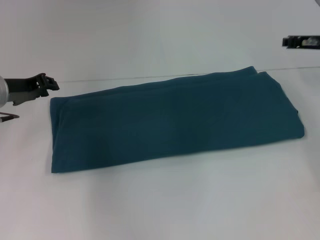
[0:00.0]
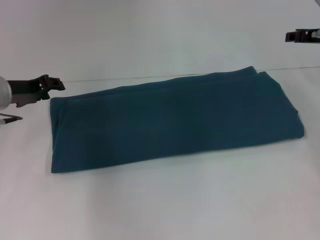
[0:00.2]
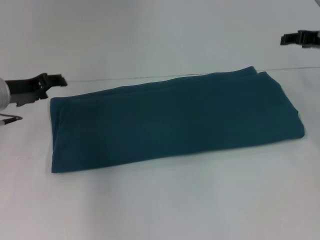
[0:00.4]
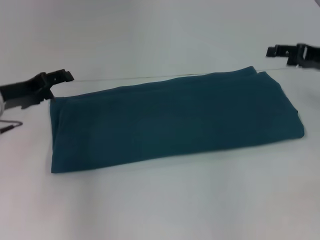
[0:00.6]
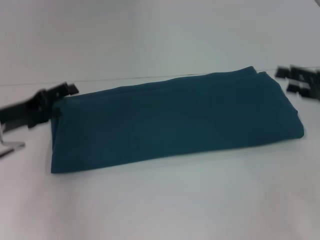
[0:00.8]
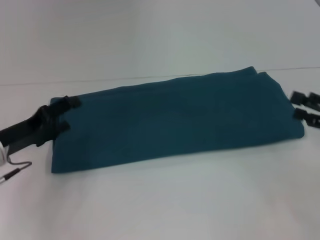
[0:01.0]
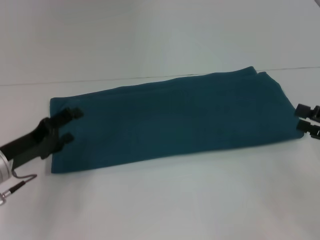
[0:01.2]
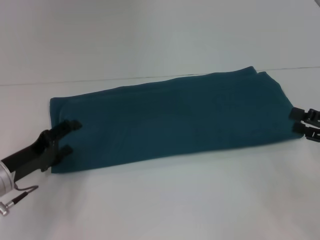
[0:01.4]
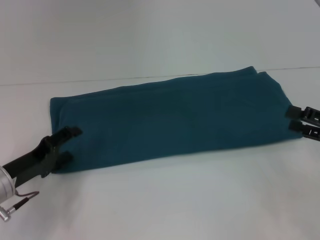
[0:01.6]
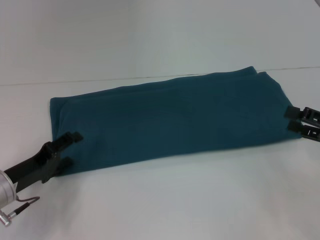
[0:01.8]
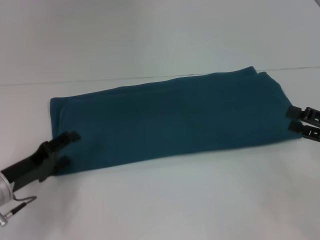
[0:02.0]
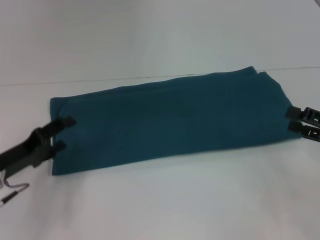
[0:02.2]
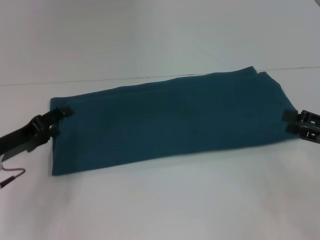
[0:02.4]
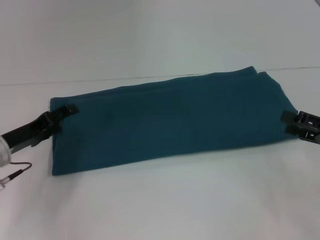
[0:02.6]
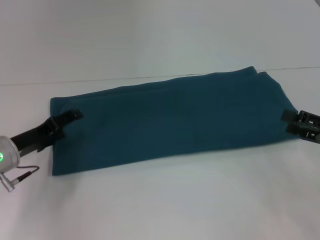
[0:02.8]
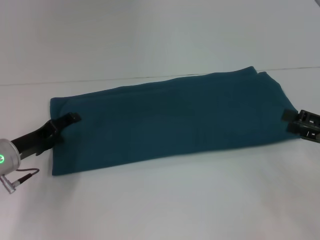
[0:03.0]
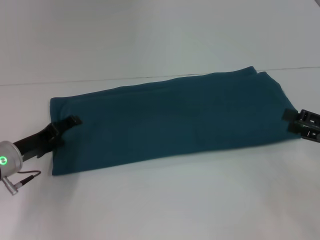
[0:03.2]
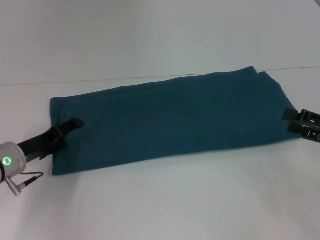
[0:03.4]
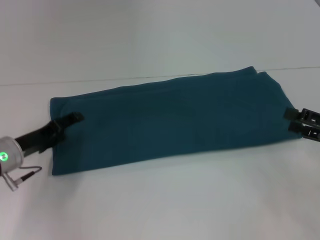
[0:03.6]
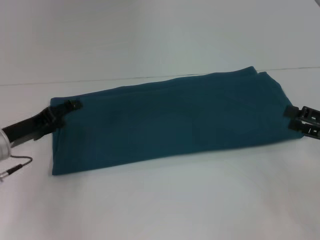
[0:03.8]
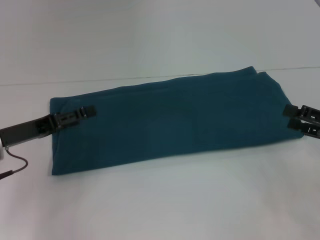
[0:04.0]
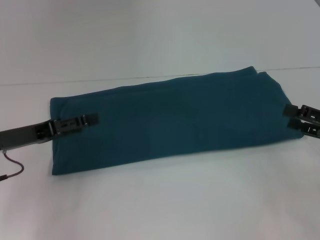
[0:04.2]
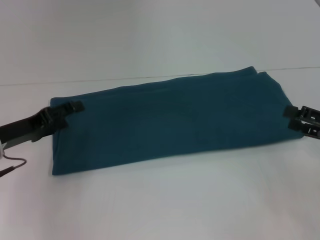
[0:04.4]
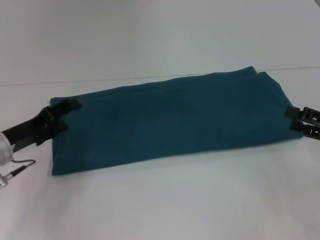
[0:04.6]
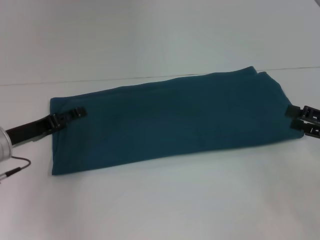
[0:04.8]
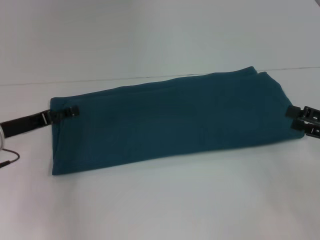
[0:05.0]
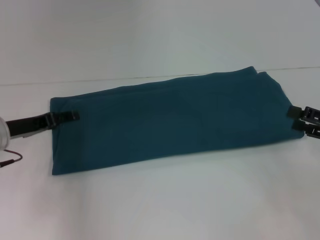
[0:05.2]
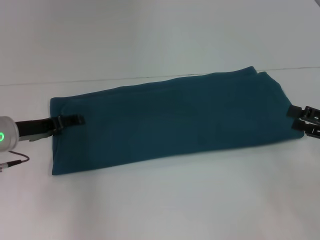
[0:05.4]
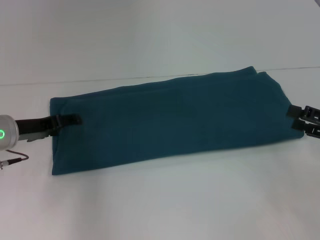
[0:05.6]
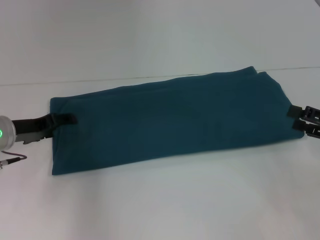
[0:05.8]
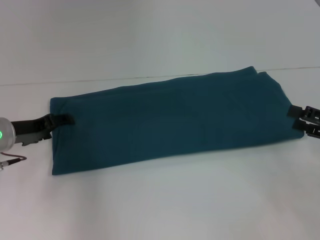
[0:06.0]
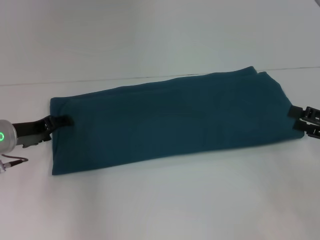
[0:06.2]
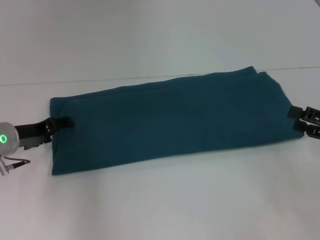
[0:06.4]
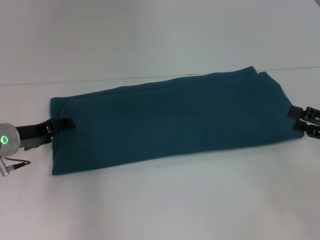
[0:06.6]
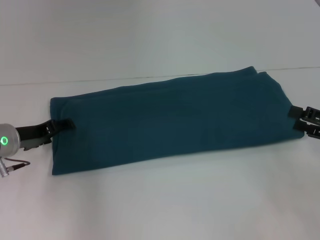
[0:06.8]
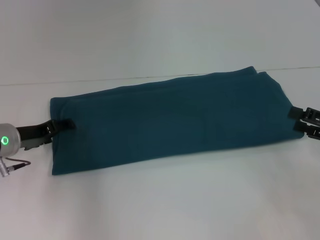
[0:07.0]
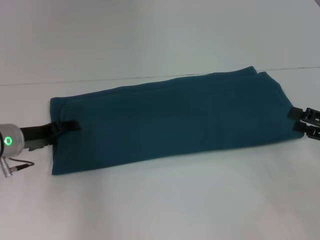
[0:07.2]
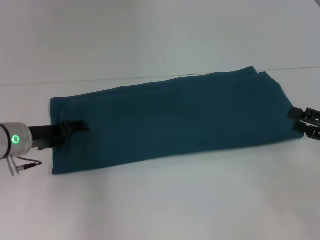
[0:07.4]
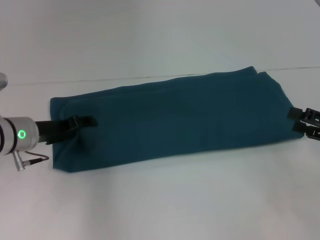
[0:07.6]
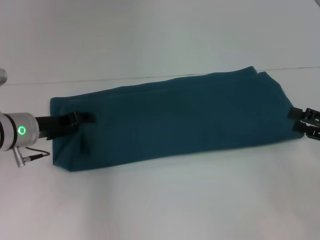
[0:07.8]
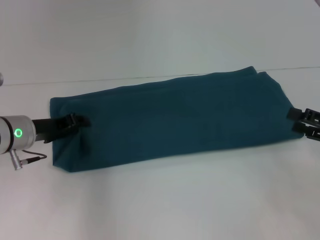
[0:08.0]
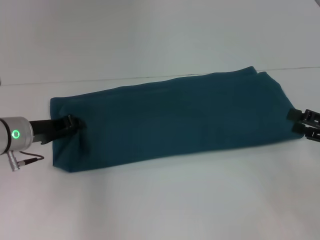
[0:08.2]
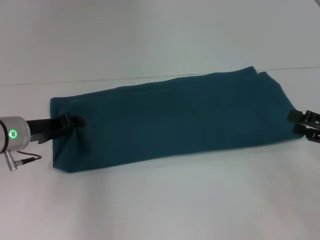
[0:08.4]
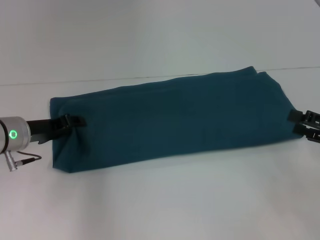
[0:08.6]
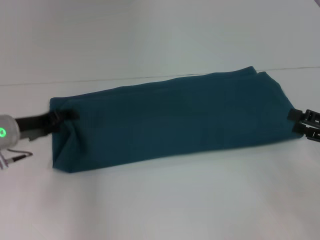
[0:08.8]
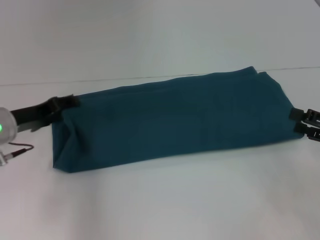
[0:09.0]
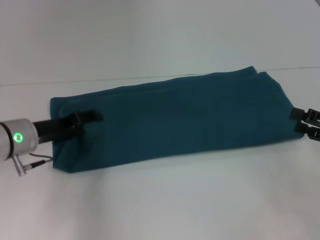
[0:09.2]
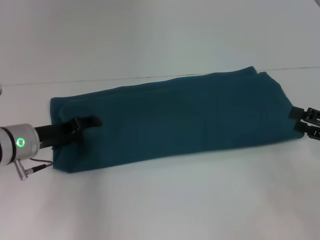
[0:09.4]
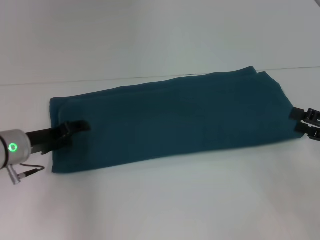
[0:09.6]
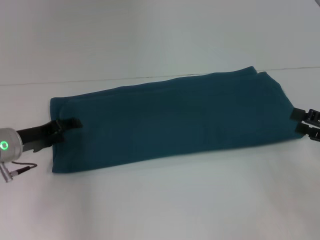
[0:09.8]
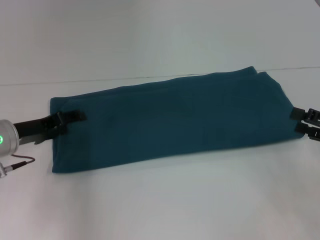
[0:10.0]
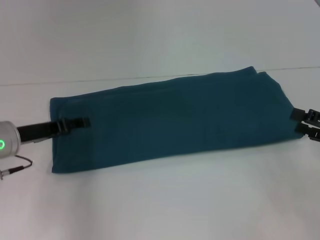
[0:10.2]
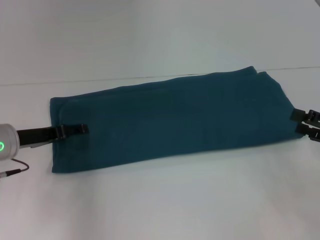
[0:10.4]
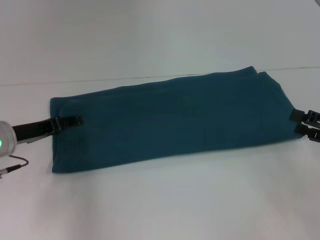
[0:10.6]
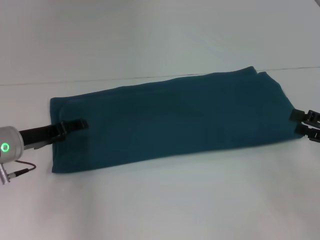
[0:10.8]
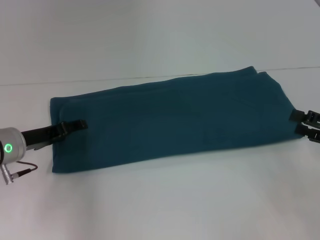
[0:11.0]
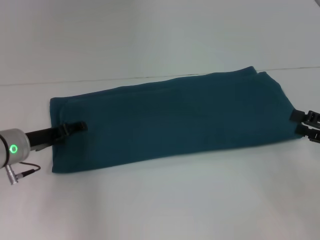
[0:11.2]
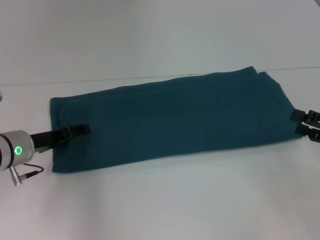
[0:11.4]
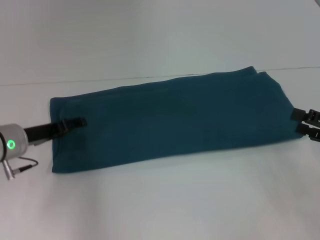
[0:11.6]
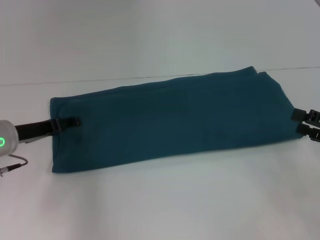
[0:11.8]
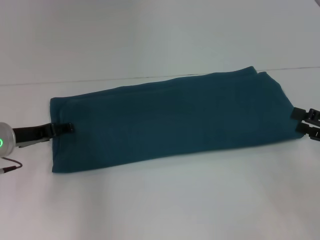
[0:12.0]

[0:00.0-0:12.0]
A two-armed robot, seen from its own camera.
0:00.0 to 0:01.6: The left gripper goes approximately 15 cm backward and downward, and opens up; the right gripper moves backward, about 20 cm, and opens up.
0:01.6 to 0:03.0: The grippers stay close to where they were, moving slightly.
0:06.0 to 0:12.0: The grippers move only a little.

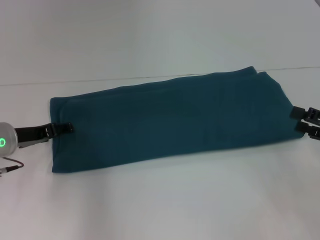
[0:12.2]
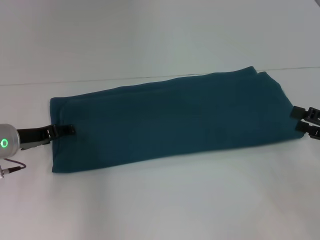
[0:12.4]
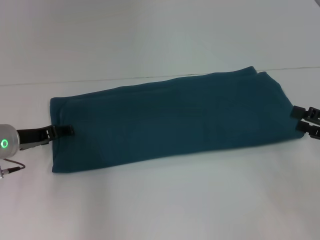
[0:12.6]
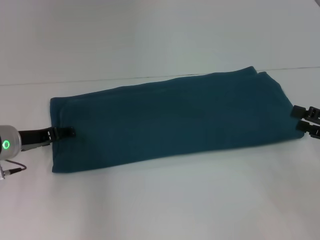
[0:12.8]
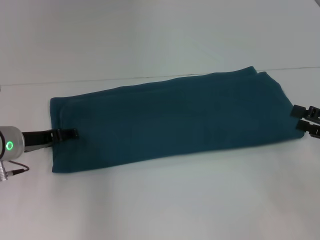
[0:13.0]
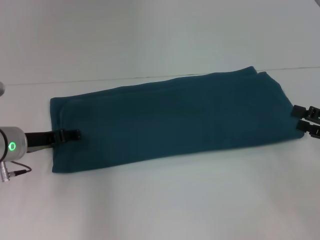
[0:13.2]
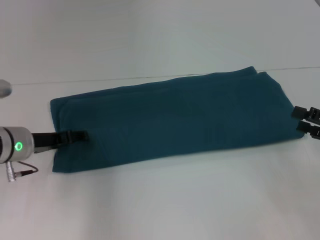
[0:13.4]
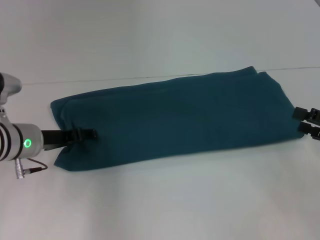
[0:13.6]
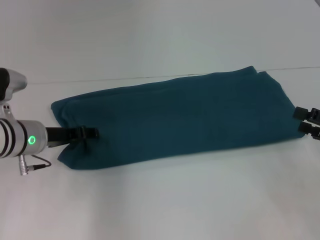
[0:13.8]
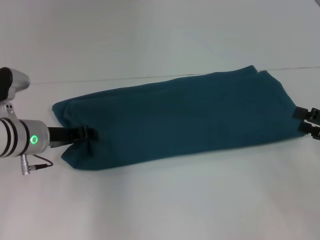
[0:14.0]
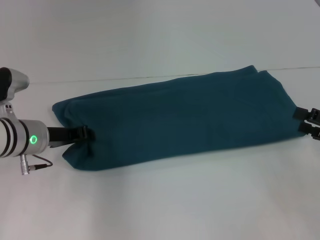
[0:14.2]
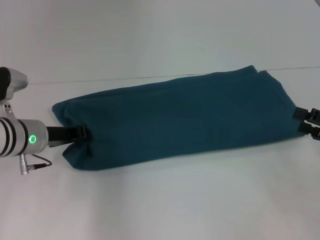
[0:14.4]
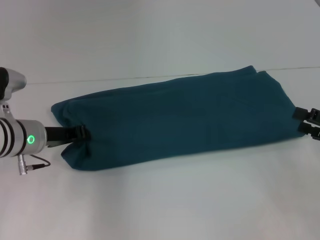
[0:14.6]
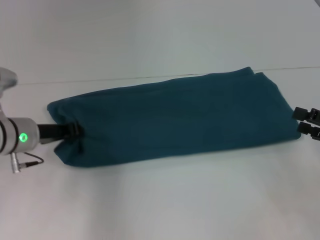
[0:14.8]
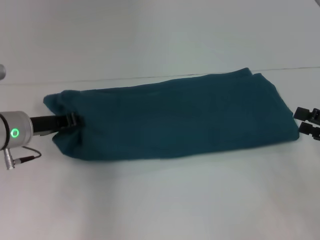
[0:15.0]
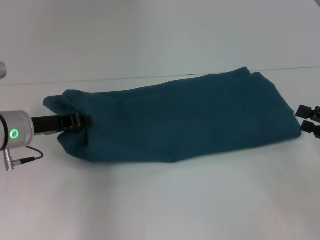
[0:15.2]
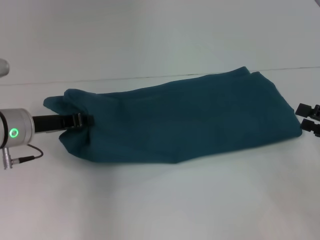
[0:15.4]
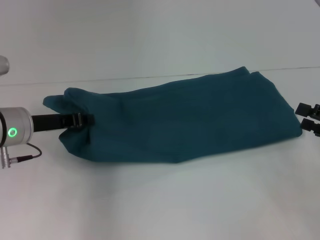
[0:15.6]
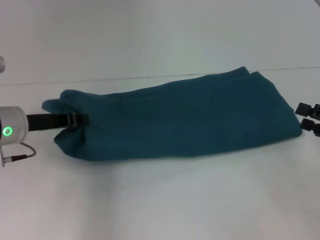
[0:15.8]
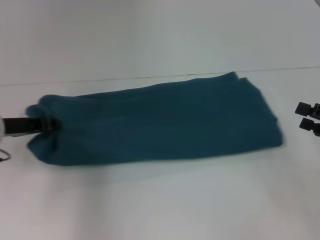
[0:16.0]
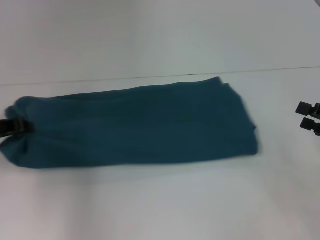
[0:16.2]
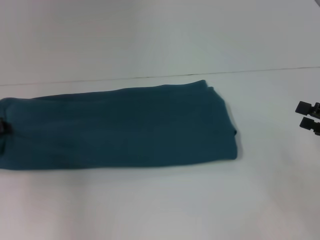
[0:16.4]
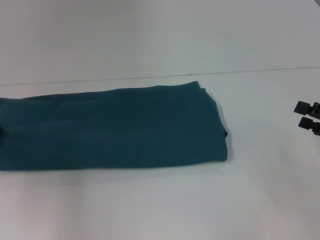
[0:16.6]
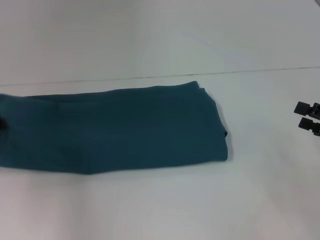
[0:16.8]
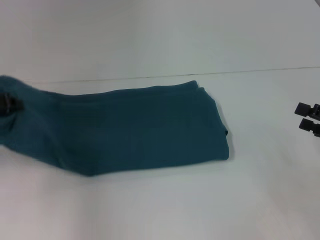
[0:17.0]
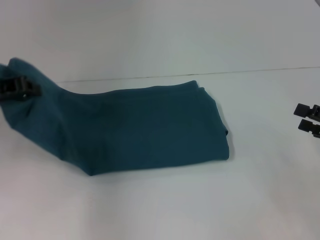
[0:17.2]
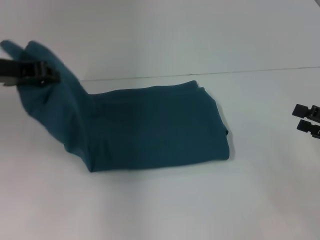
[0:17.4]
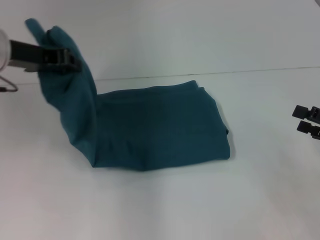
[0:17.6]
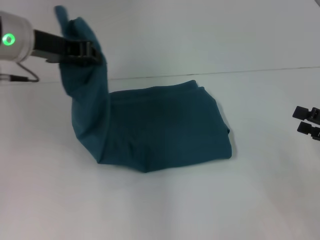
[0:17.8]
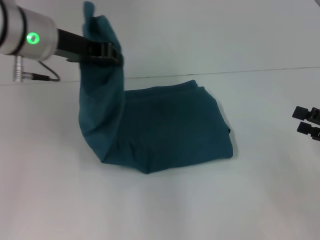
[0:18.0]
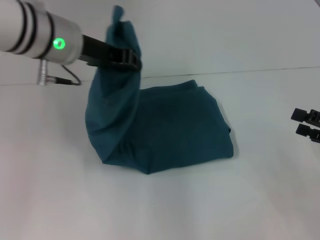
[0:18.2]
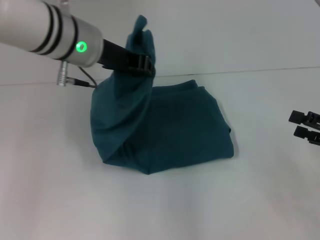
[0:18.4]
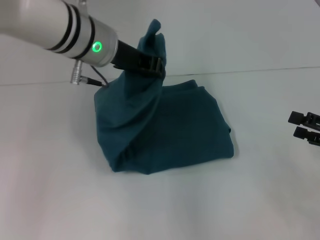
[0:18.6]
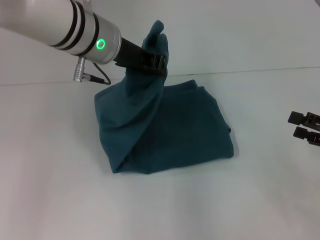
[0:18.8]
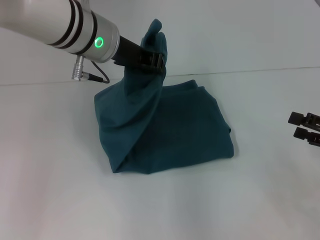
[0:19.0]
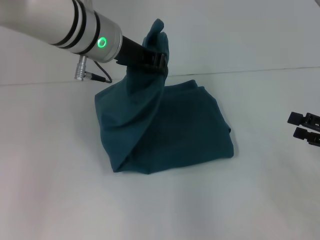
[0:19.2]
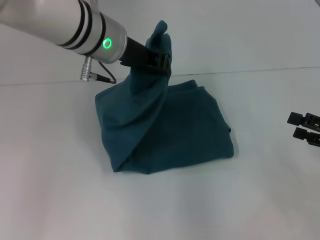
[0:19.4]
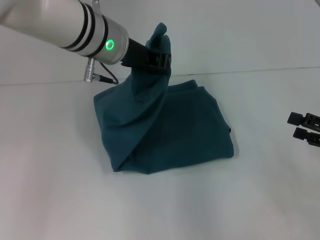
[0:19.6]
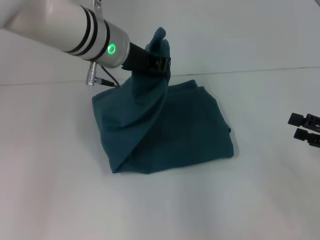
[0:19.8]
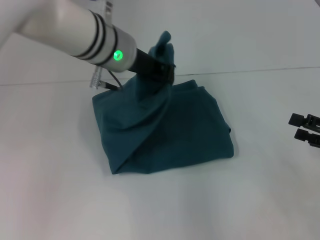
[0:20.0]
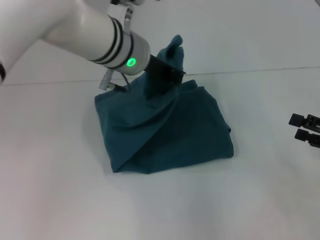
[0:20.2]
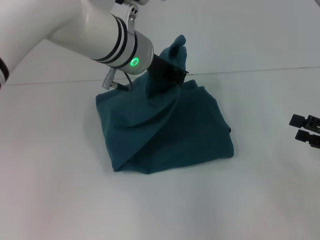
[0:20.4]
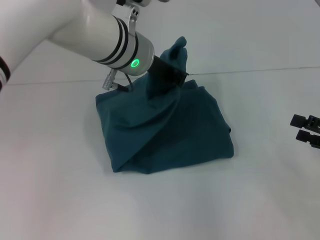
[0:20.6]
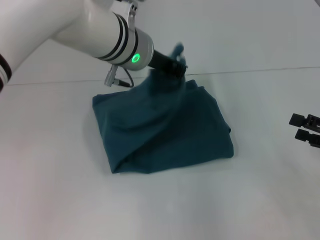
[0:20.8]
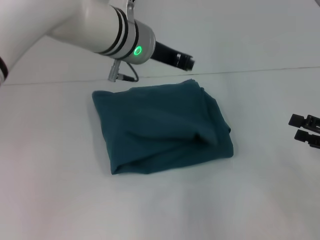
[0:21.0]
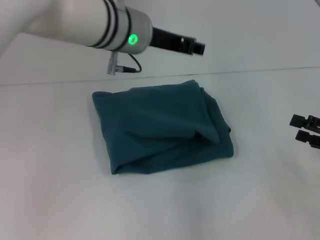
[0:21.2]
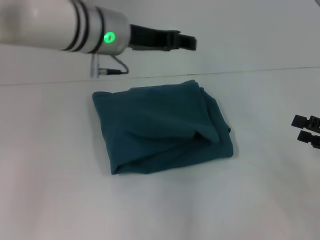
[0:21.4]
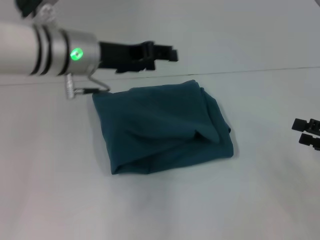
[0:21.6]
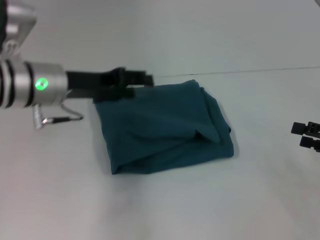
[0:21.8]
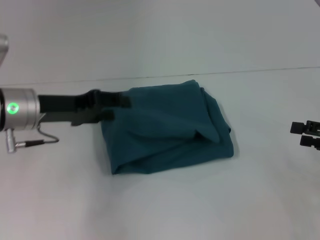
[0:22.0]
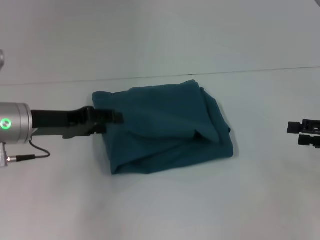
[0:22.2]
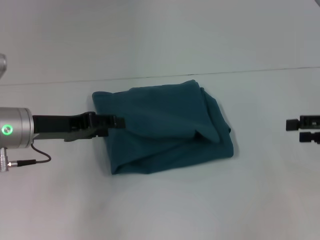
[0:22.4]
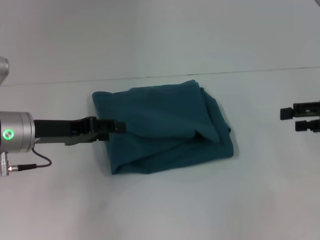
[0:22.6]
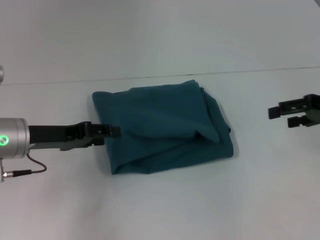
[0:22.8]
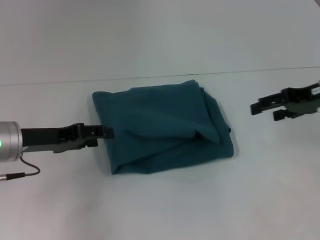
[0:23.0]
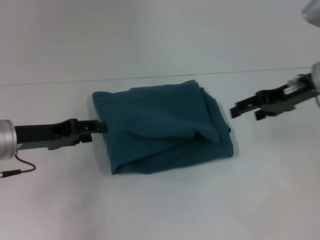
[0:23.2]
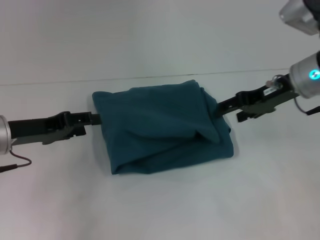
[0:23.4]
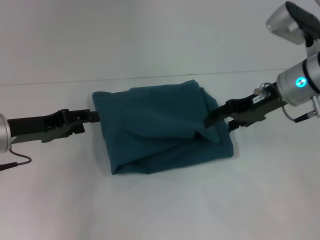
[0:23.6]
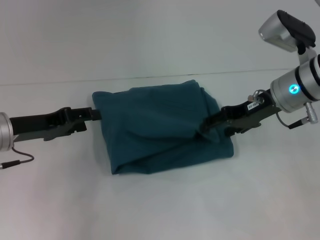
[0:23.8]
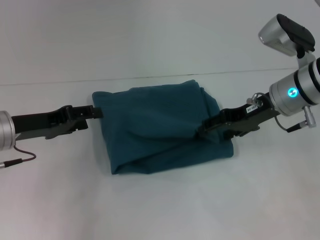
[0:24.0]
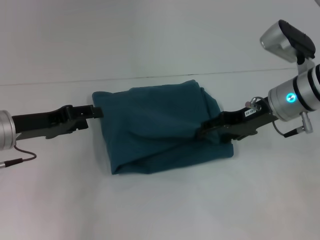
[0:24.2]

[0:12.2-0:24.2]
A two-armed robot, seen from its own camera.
Step, 0:12.2 to 0:20.8: Fold the clothes to the left.
0:12.2 to 0:13.8: There are only small adjustments of the grippers.
0:13.8 to 0:15.2: The left gripper closes.
0:15.2 to 0:16.6: The left gripper moves to the left, about 10 cm.
0:16.6 to 0:18.2: The left gripper shifts about 25 cm to the right and upward.
0:18.2 to 0:19.8: The left gripper shifts approximately 5 cm to the right.
0:19.8 to 0:21.2: The grippers move only a little.
0:21.2 to 0:22.6: The right gripper shifts about 10 cm upward and forward, while the left gripper is displaced to the left and downward by approximately 20 cm.
0:22.6 to 0:24.2: The right gripper goes some 15 cm to the left and forward.
